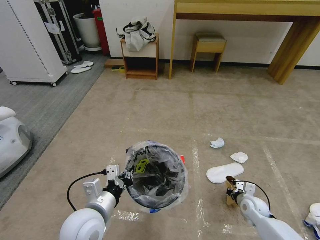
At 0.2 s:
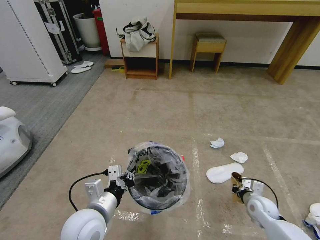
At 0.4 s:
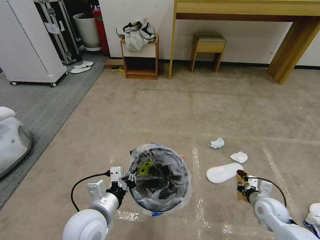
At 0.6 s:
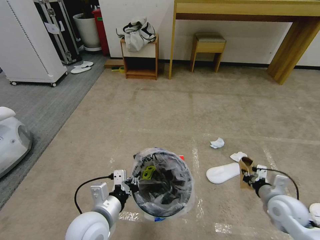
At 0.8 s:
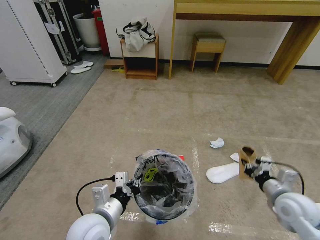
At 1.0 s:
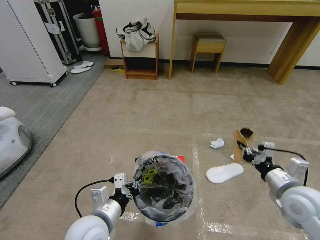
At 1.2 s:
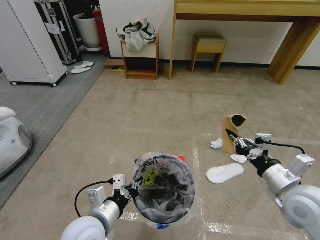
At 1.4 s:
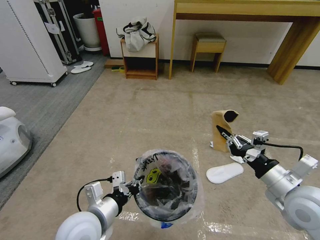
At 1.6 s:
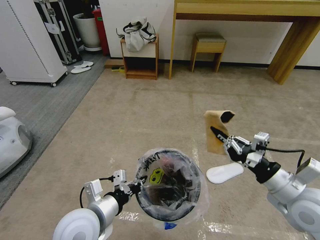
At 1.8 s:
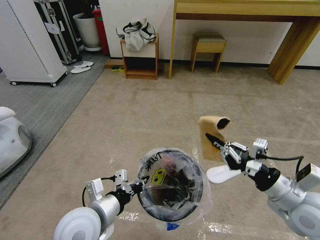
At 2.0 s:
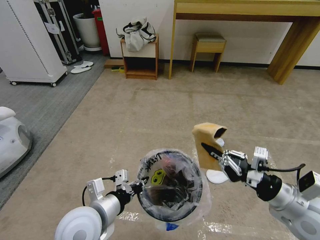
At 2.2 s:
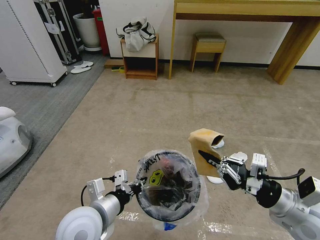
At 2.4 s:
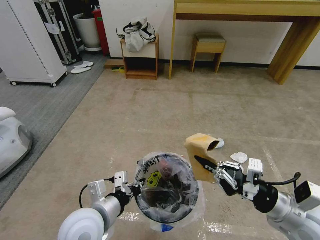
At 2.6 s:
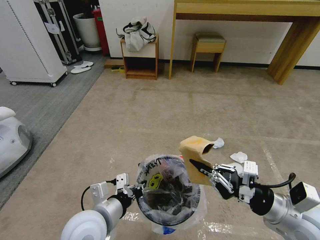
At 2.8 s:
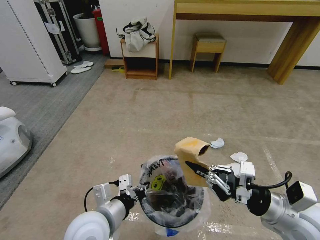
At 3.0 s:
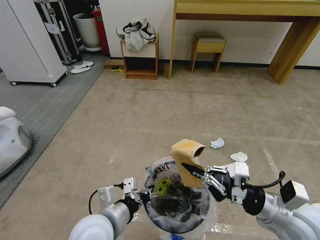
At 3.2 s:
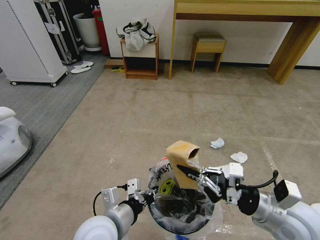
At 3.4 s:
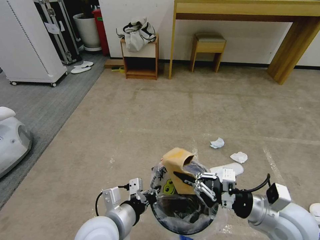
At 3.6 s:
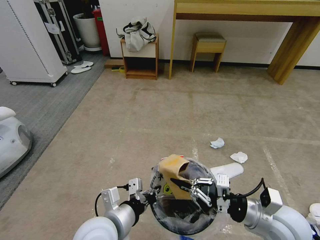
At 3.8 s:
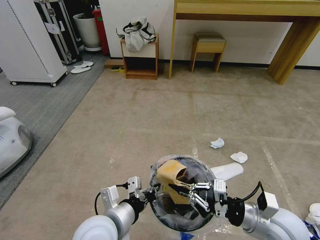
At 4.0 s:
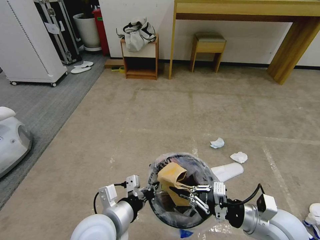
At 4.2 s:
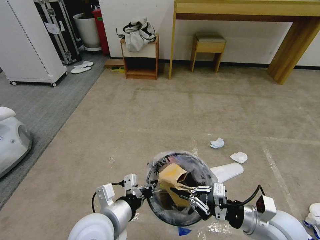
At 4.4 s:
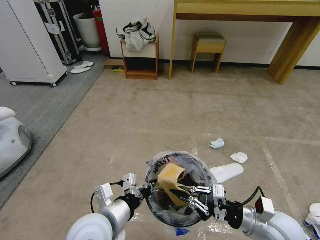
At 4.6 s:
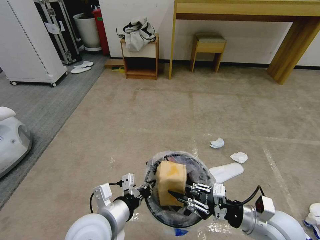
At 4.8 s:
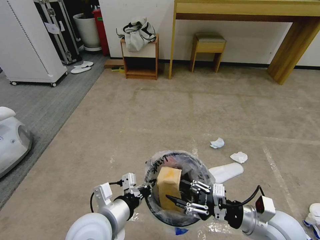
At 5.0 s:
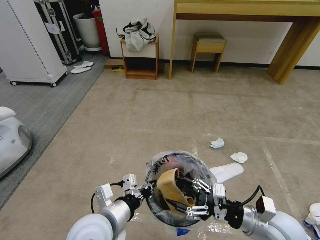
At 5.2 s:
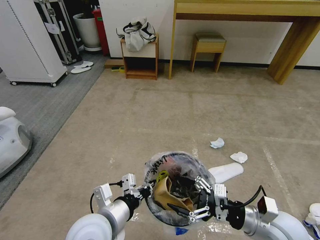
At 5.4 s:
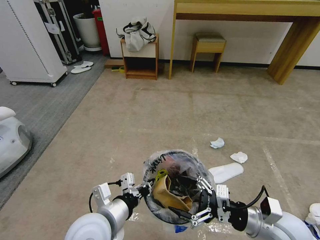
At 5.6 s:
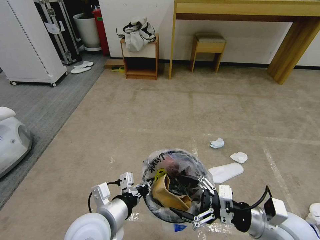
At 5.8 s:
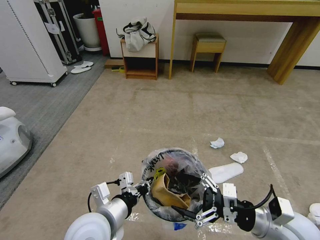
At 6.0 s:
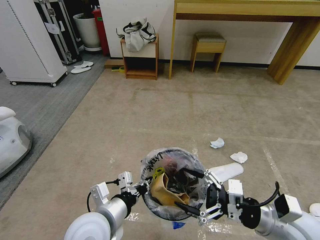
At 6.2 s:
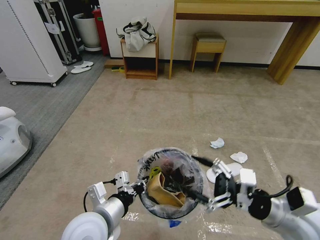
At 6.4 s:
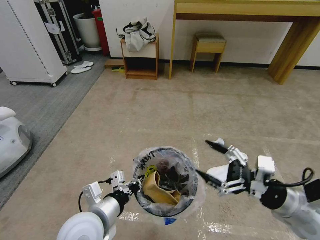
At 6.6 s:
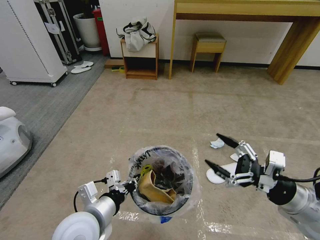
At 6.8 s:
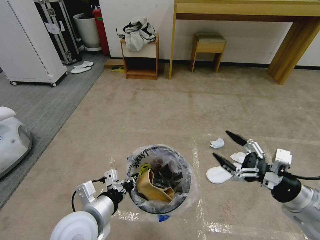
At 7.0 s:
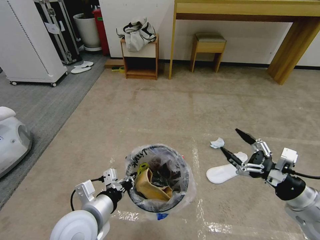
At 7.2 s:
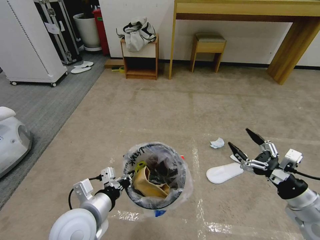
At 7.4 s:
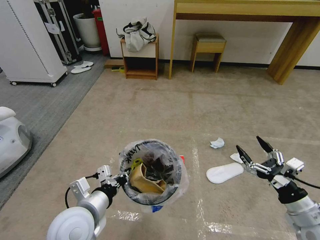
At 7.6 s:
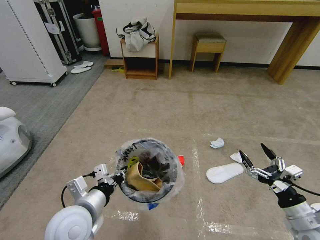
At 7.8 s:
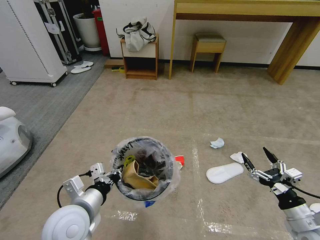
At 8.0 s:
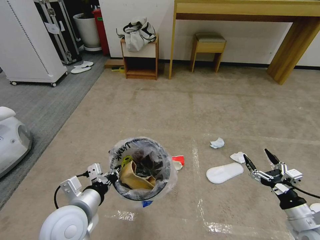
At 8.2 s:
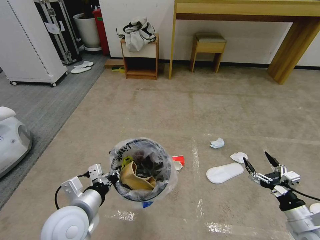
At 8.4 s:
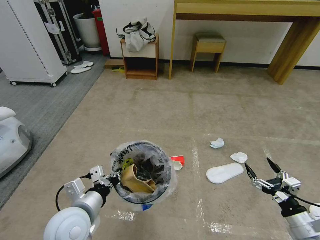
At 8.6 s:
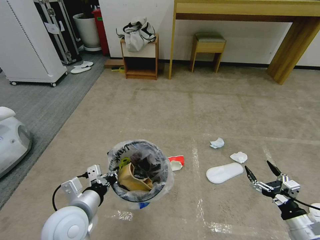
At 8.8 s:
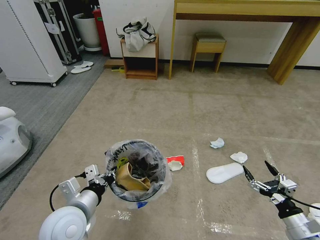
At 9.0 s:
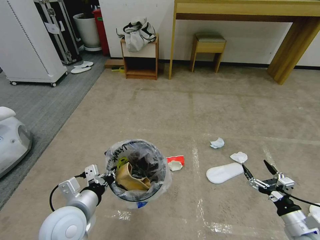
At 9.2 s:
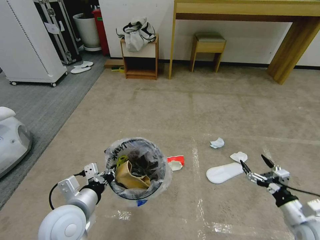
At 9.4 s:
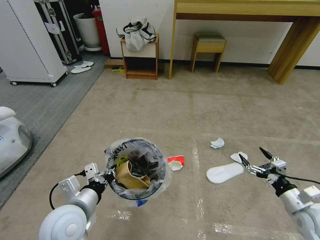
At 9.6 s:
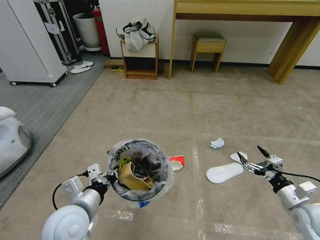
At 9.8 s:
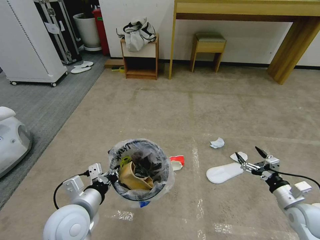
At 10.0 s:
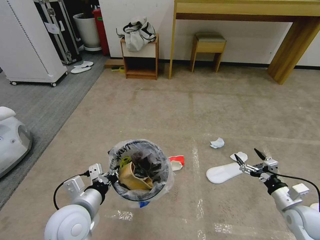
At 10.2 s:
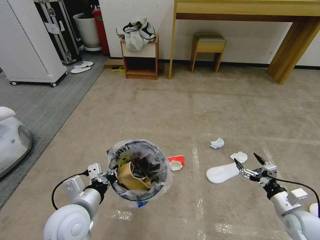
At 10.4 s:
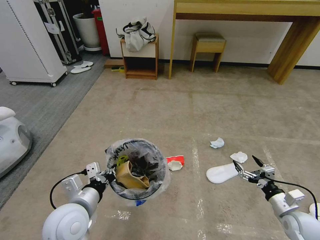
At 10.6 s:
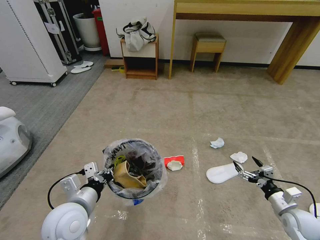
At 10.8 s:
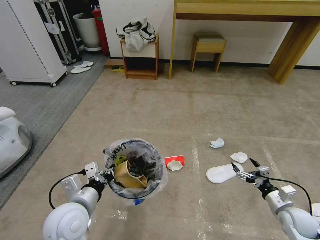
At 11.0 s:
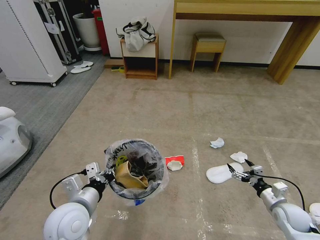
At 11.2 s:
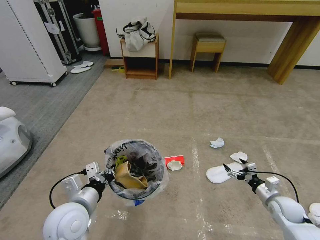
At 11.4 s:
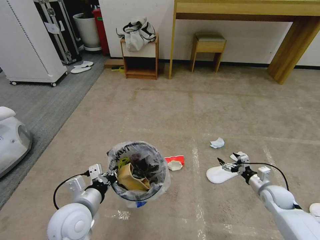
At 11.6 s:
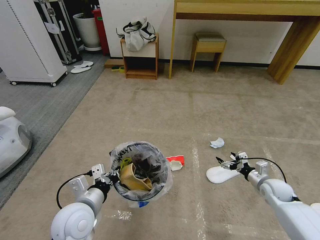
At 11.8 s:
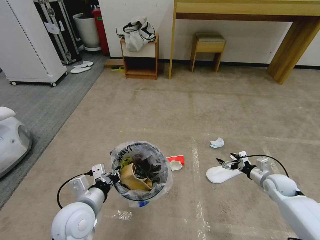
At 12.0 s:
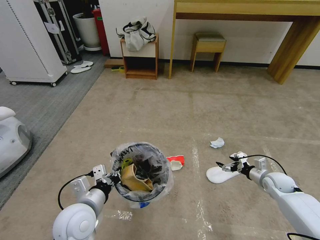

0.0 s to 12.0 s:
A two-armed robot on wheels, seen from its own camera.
Task of the whole recording: Pick up the trash bin and place the garbage on the floor into it.
0.0 to 1.6 s: The right gripper goes roughly 30 cm upward.
3.0 to 4.4 s: The right gripper goes roughly 5 cm downward.
4.4 to 6.0 s: The right gripper changes place by approximately 5 cm, and opens.
6.0 to 7.6 s: The right gripper is displaced to the right and downward by about 10 cm, while the left gripper ends up about 5 cm from where it was.
7.6 to 9.0 s: The right gripper moves downward, roughly 5 cm.
9.0 to 10.4 s: The right gripper travels forward by approximately 5 cm.
10.4 to 12.0 s: The right gripper moves forward, about 15 cm.

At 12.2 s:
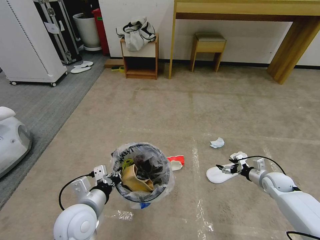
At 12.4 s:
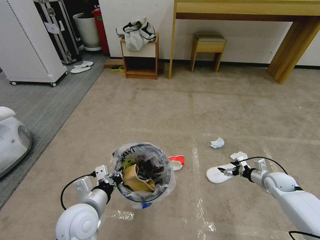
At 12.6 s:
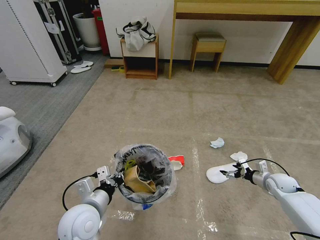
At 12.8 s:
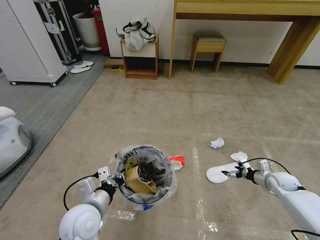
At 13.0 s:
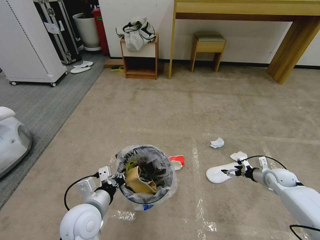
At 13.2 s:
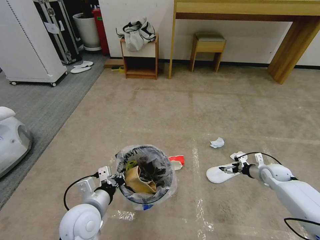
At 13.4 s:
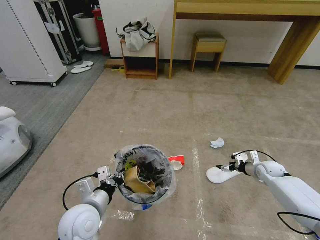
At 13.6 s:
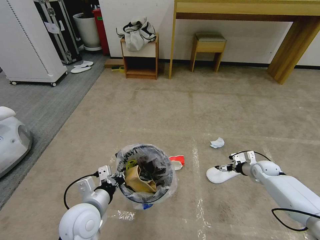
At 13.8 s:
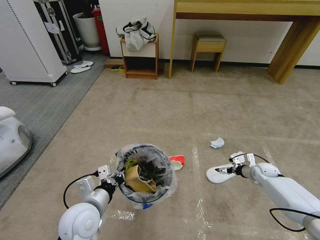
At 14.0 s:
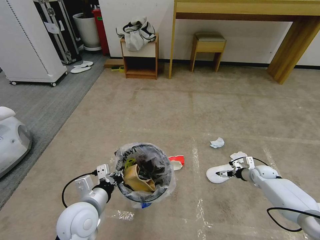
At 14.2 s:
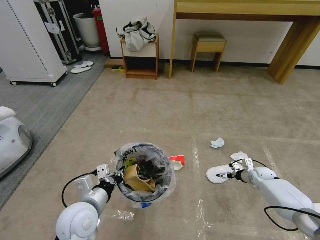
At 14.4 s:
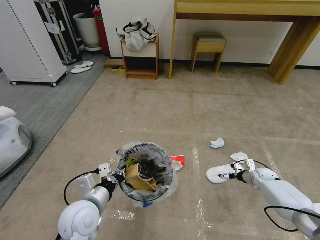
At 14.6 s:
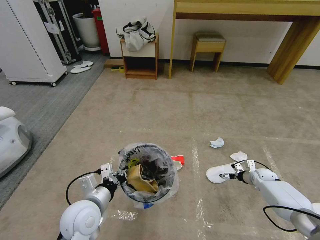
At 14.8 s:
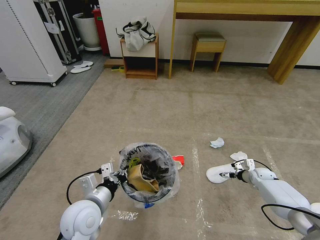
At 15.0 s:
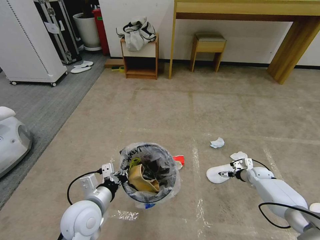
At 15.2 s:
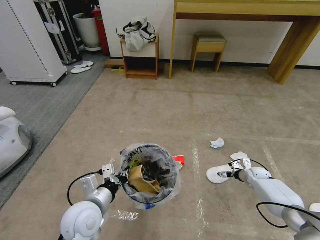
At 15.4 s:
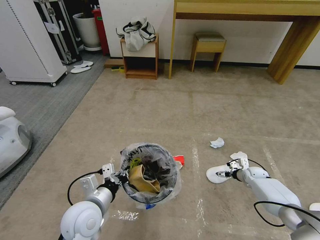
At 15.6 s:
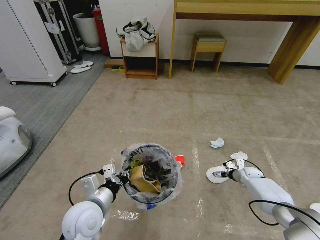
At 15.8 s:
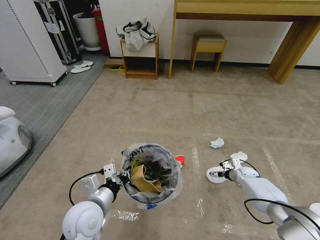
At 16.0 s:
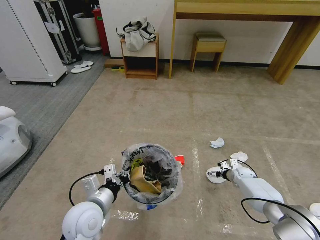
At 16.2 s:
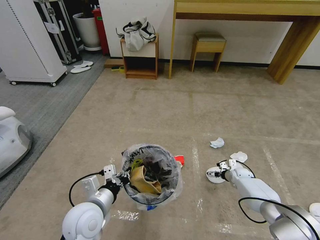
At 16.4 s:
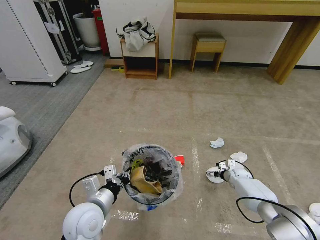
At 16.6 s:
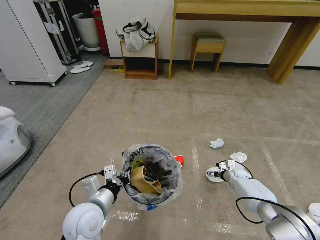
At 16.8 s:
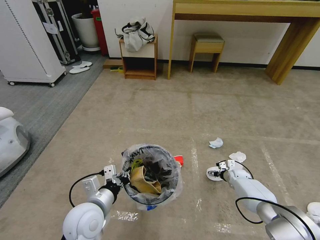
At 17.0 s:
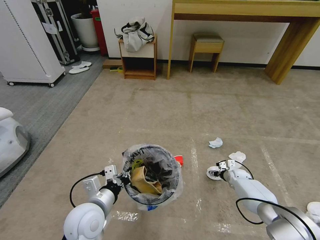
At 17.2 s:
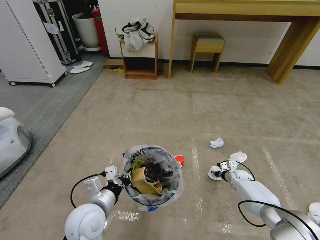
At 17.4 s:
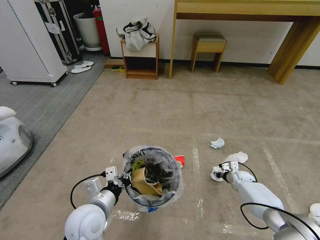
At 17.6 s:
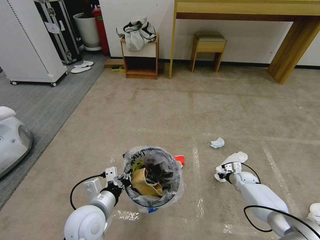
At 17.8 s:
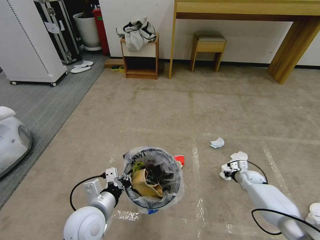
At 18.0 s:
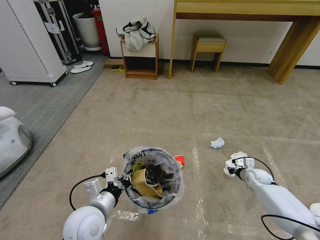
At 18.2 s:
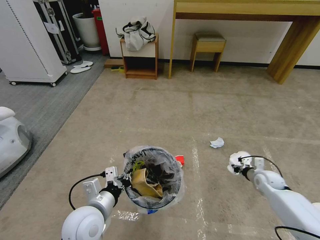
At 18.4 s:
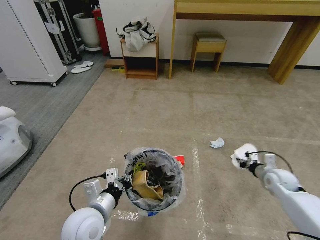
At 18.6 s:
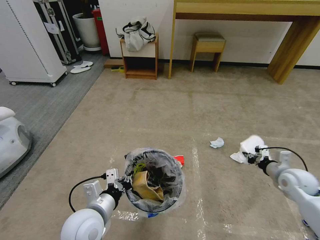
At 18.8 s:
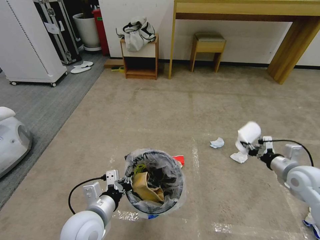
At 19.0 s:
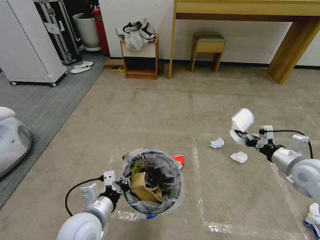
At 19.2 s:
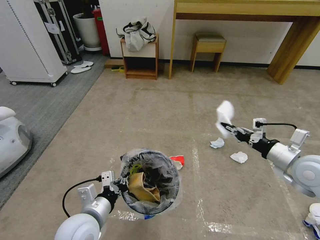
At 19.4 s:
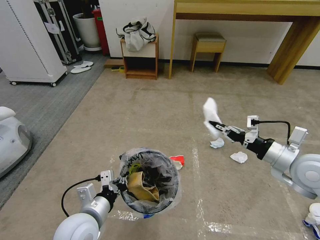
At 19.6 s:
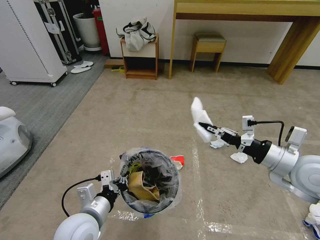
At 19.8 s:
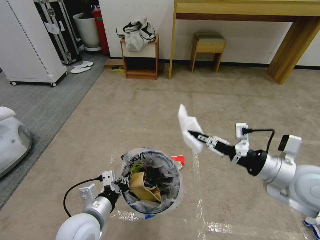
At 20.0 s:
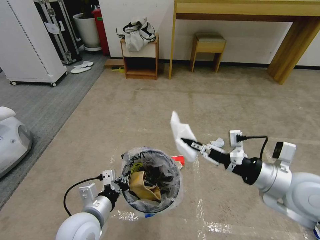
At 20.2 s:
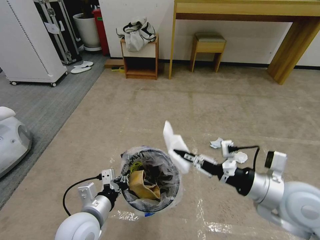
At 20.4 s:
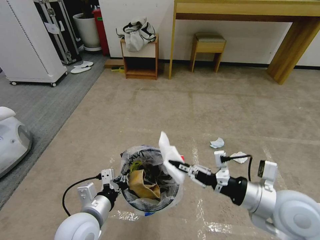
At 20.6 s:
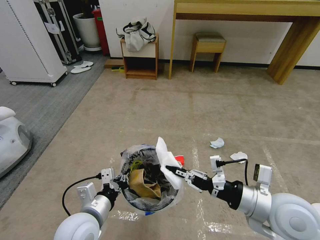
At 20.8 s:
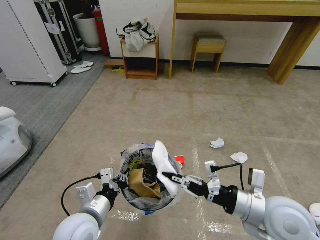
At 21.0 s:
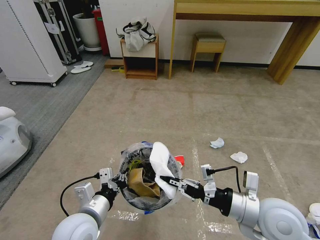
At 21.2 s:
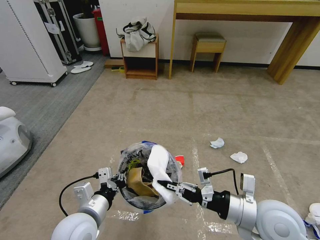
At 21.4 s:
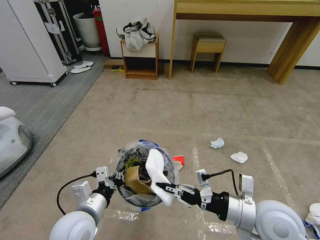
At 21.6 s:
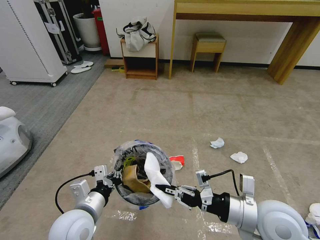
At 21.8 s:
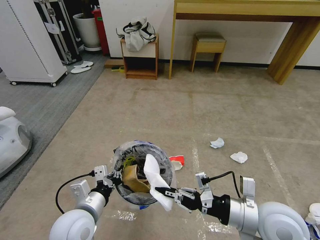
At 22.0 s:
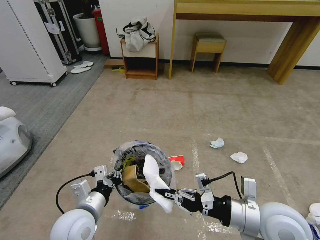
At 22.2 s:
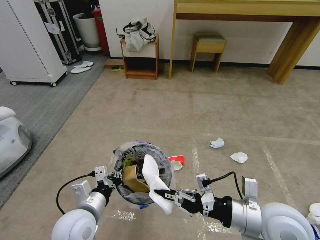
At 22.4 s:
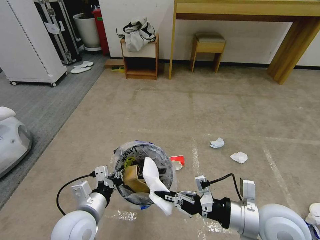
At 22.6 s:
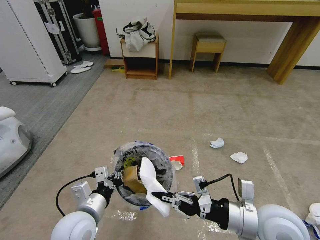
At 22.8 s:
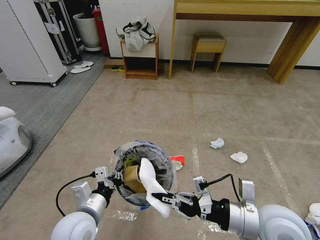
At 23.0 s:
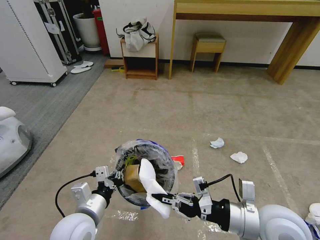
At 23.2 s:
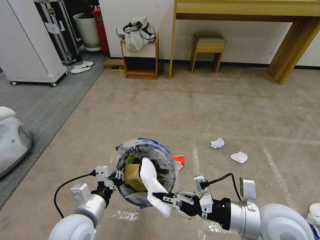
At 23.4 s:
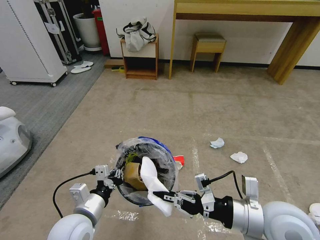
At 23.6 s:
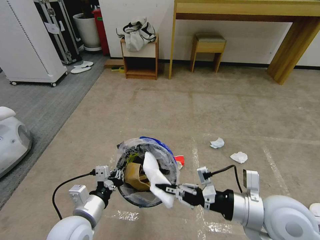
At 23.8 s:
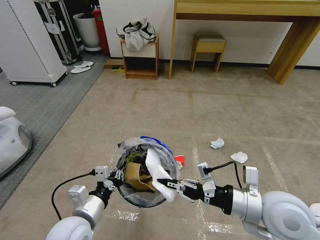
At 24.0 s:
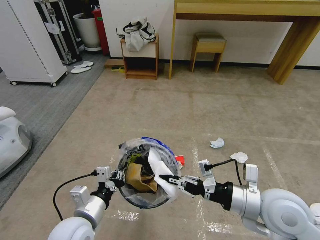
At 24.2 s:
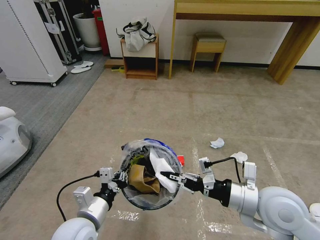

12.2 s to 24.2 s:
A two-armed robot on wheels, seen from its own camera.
Task of the whole recording: Pick up the trash bin and place the garbage on the floor into it.
12.2 to 13.8 s: The right gripper travels forward by approximately 5 cm.
13.8 to 15.2 s: There are only small adjustments of the grippers.
15.2 to 16.6 s: The right gripper heads to the left, covering about 5 cm.
16.6 to 18.2 s: The right gripper shifts about 10 cm upward and backward, and closes.
18.2 to 19.8 s: The right gripper travels upward, backward and to the left by roughly 35 cm.
19.8 to 21.2 s: The right gripper is displaced downward, to the left and backward by roughly 10 cm.
21.2 to 24.2 s: The grippers move only a little.
